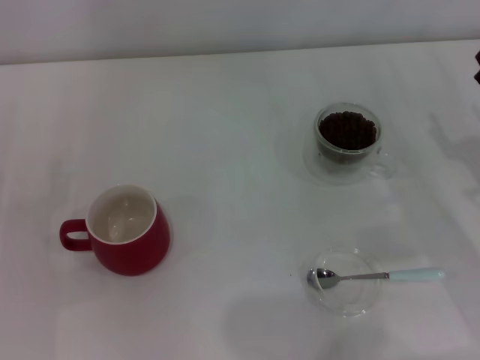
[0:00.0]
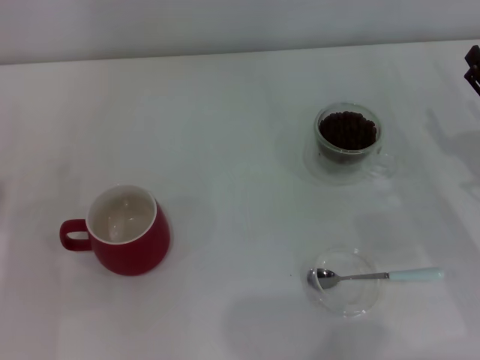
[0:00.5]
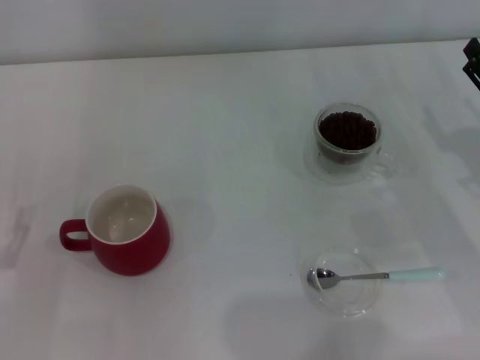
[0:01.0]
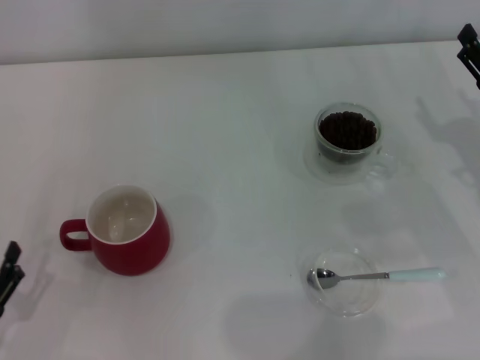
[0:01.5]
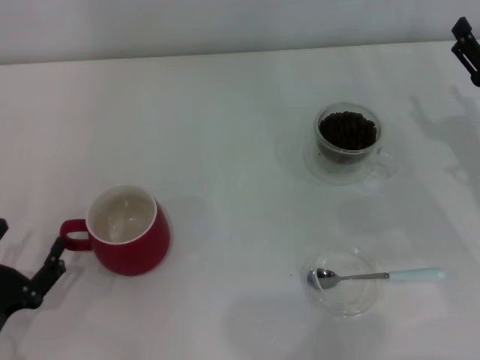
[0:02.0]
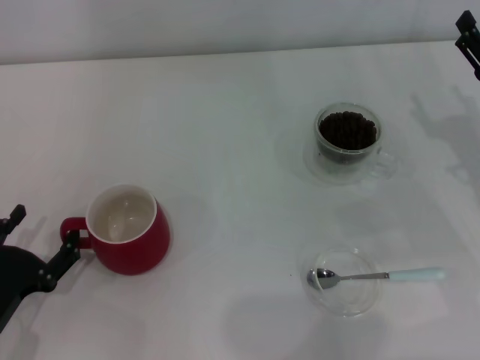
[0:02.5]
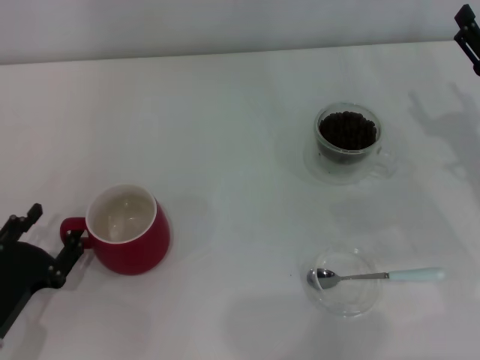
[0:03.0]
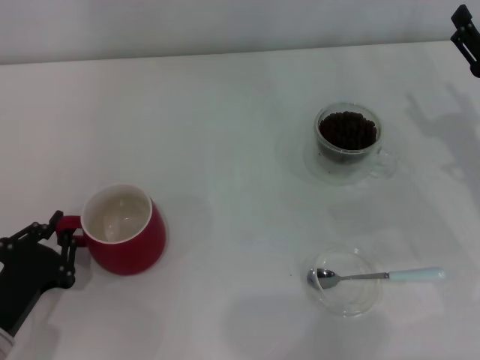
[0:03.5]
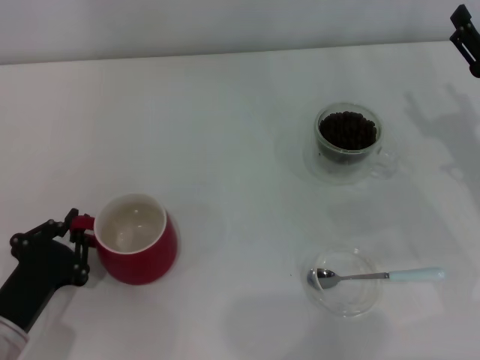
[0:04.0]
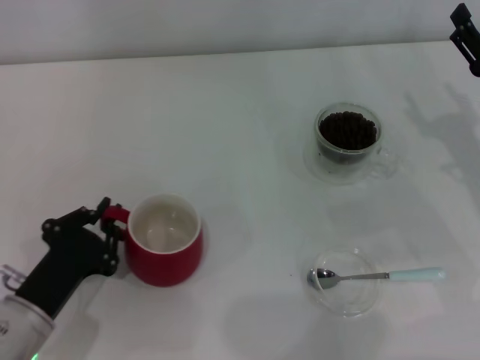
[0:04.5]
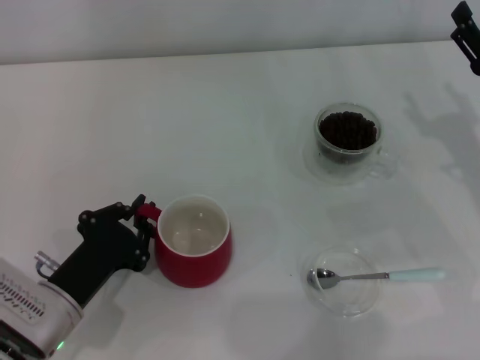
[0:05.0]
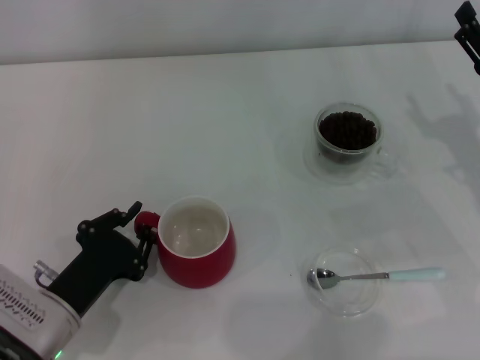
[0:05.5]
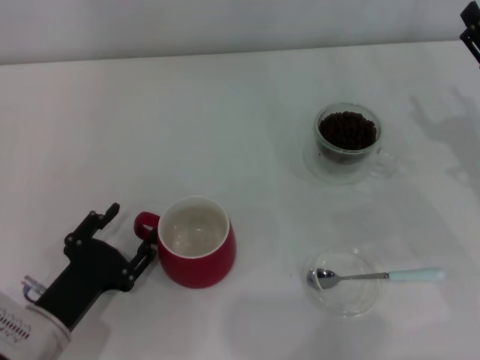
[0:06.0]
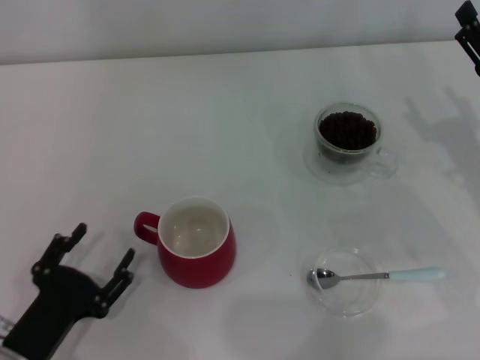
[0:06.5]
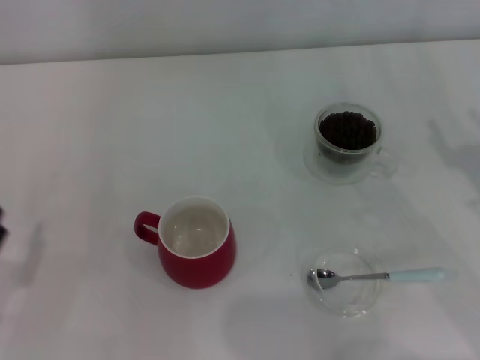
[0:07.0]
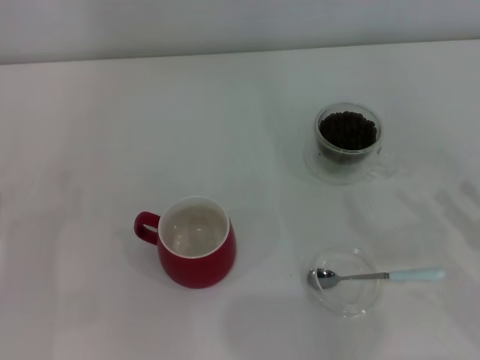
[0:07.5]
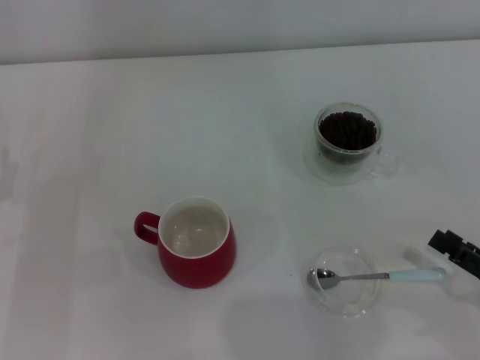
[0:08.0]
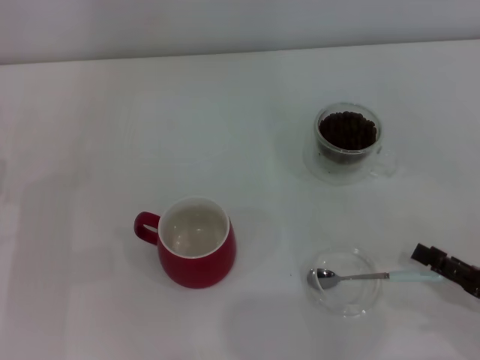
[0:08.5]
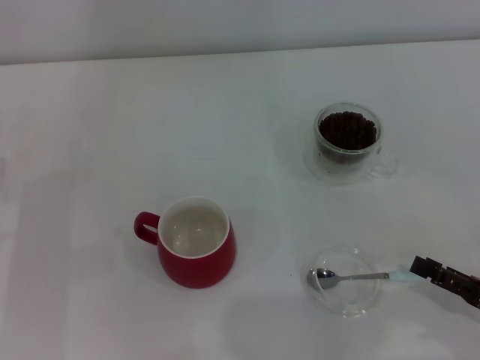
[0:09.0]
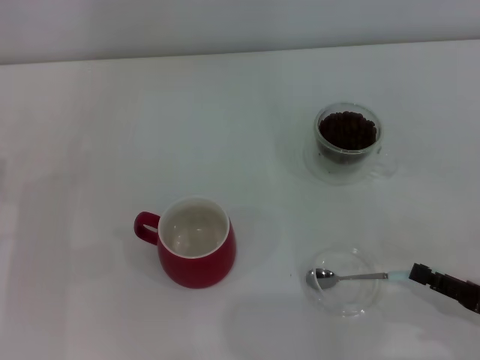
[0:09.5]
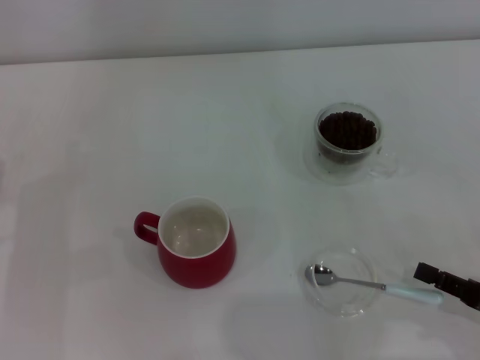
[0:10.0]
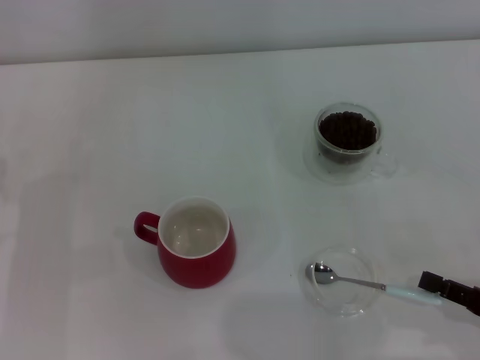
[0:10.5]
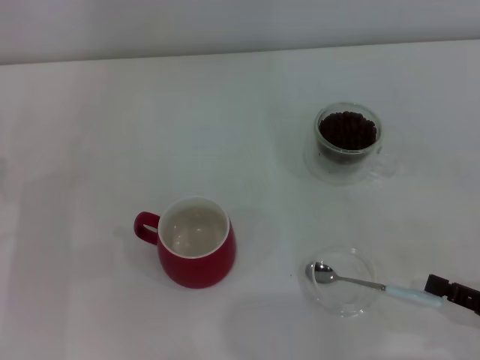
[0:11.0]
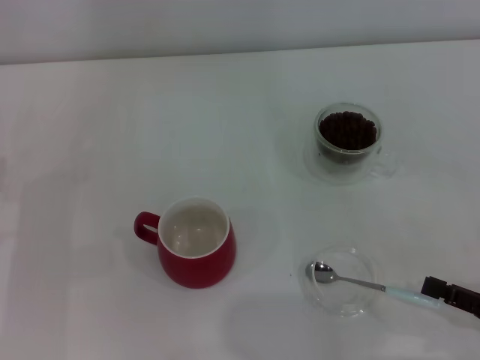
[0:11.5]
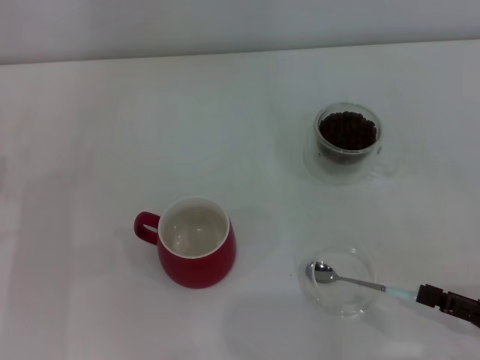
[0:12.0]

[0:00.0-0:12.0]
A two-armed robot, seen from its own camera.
Task of the whole recording: Use a blue spoon to take out the coffee beans from the glass and pour them into the red cup.
Step, 0:00.0 to 0:06.0: Move the cup to the center of view with the left gripper.
0:00.0 to 0:02.0: The left gripper heads backward, covering approximately 10 cm.
0:02.0 to 0:04.0: The left gripper closes.
0:04.0 to 0:06.0: The left gripper opens its fingers.
0:06.0 to 0:08.0: The left gripper goes roughly 10 cm to the left and forward, and opens its fingers; the right gripper moves backward, approximately 15 cm.
0:08.0 to 0:10.0: The right gripper closes.
0:10.0 to 0:12.0: The right gripper opens up.

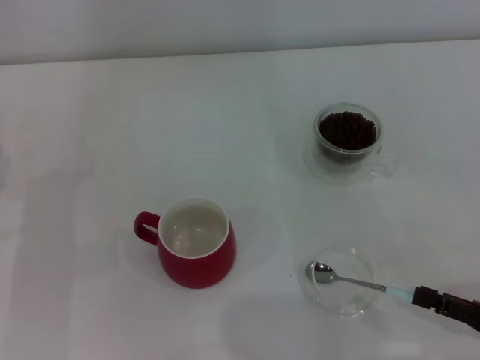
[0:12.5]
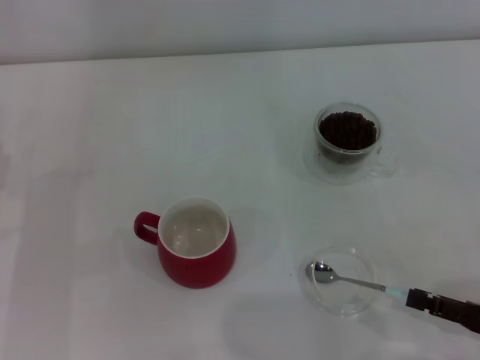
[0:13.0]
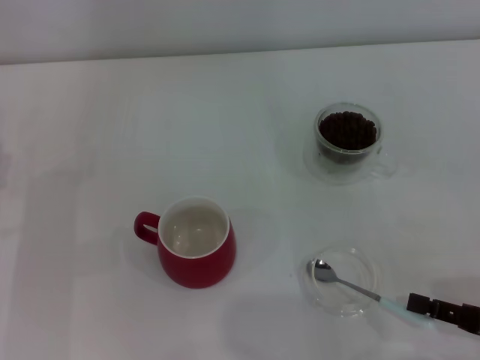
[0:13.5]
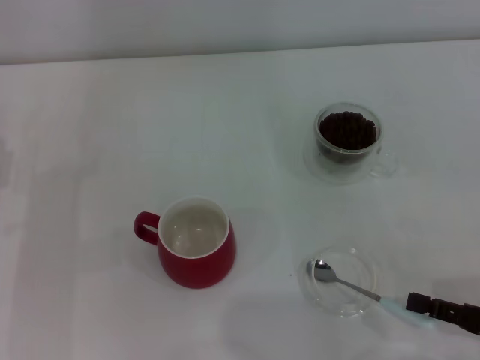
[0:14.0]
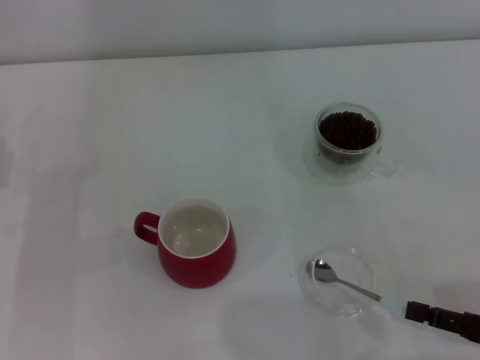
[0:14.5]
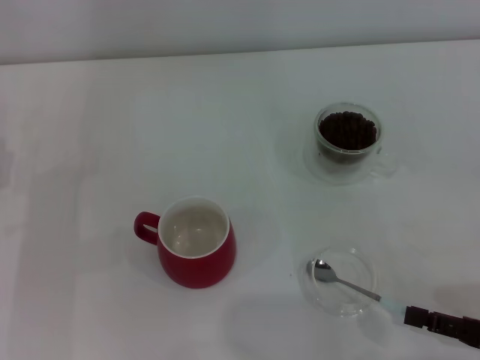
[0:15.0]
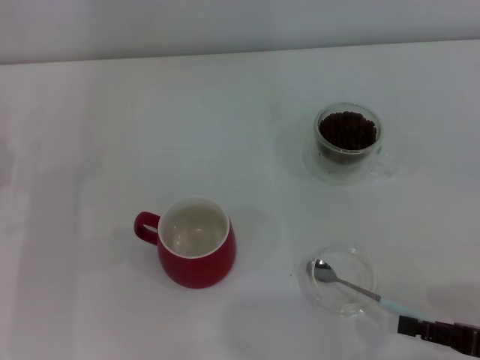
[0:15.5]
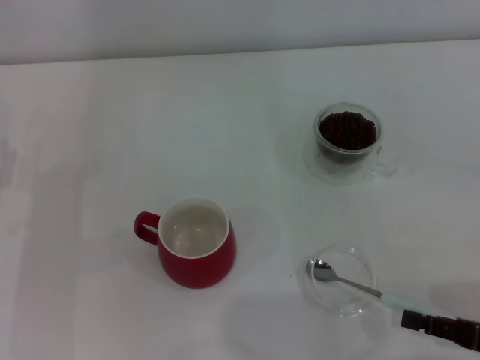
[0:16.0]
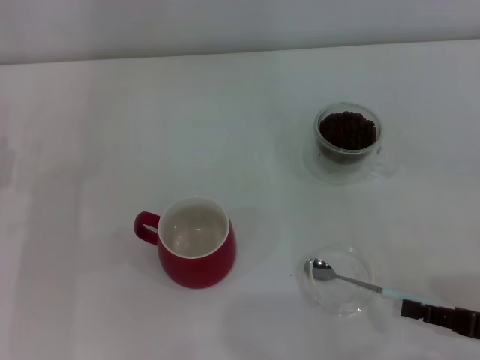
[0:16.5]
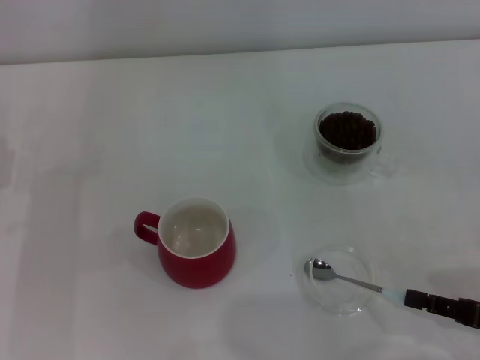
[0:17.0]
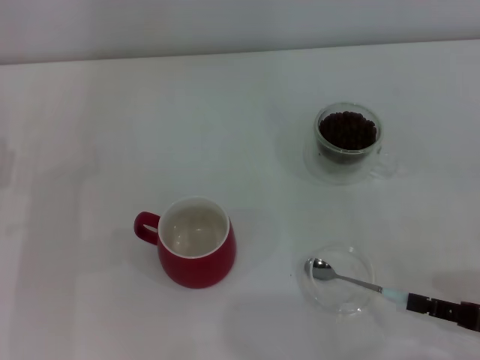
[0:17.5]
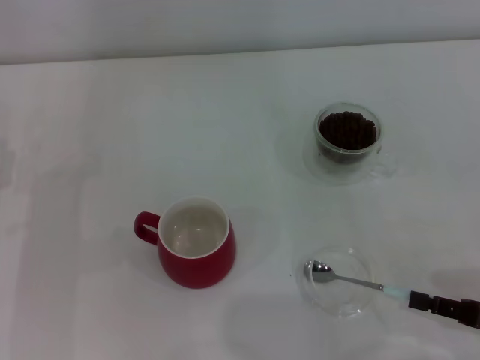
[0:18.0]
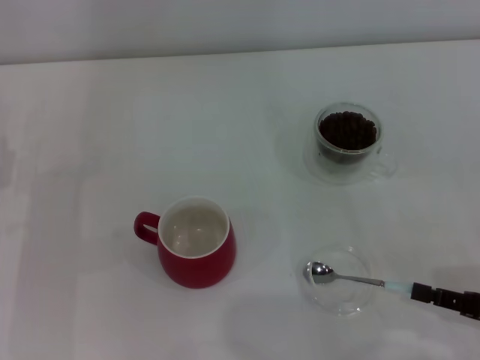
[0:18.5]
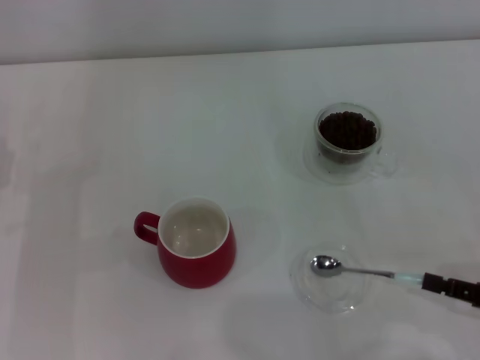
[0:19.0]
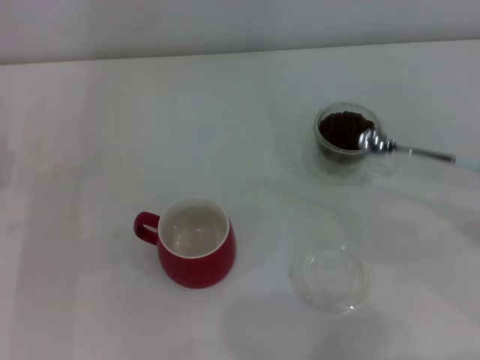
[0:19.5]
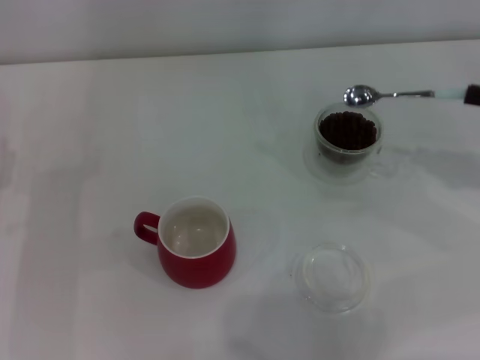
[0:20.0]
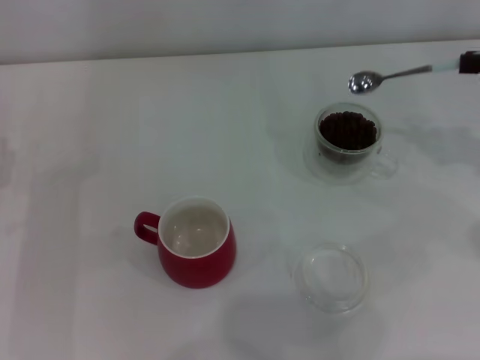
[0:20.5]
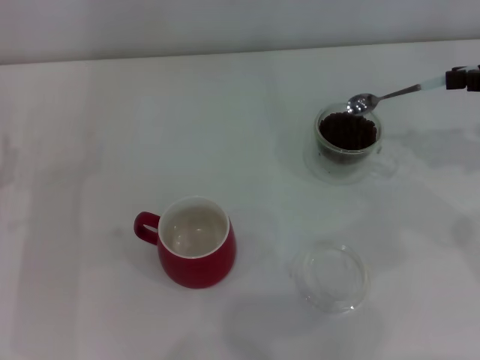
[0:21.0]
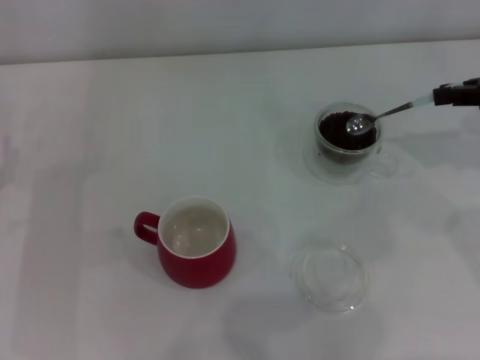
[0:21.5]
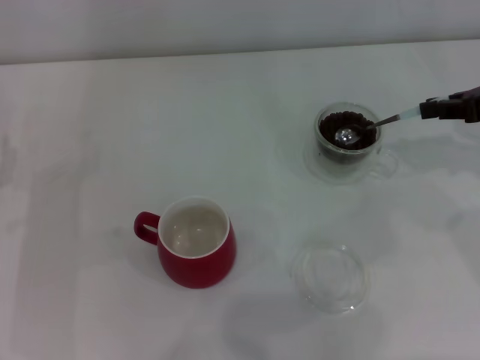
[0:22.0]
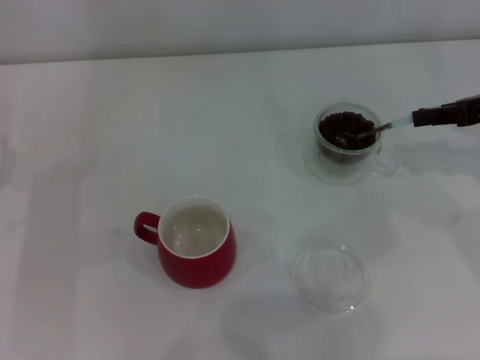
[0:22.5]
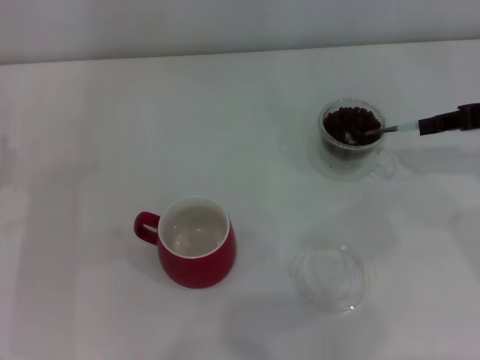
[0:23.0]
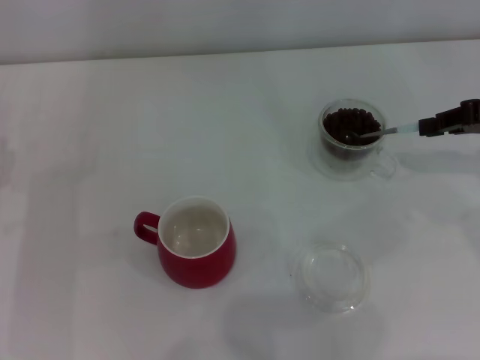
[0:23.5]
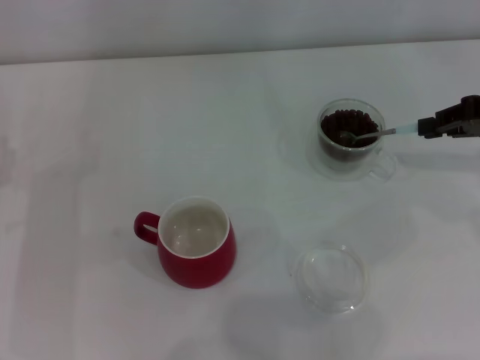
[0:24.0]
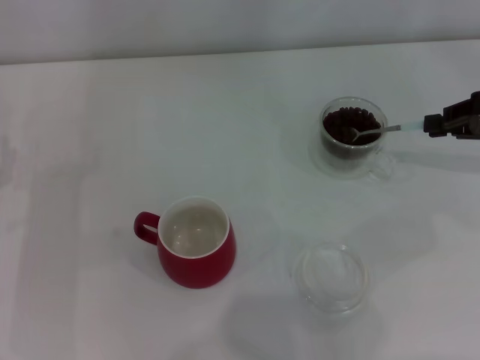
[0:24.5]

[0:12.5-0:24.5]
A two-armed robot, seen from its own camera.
Task of the whole recording: Use a blue spoon to take out the coffee beans from the glass and pour them into the red cup.
Step, 0:12.5 to 0:19.0: Pick up the spoon with the right gripper.
0:12.5 to 0:14.5: The right gripper closes, then opens again.
0:14.5 to 0:16.5: Both grippers stay about where they are.
0:16.5 to 0:18.5: Both grippers stay put.
0:18.5 to 0:20.5: The right gripper is displaced upward and forward by roughly 25 cm.
0:20.5 to 0:22.5: The right gripper moves roughly 5 cm.

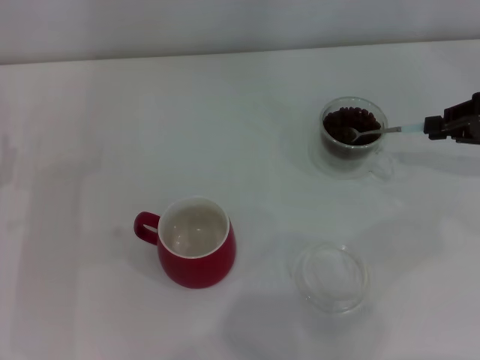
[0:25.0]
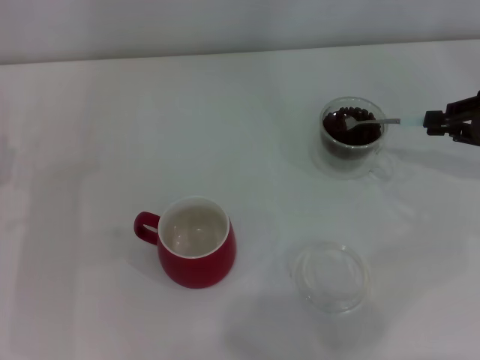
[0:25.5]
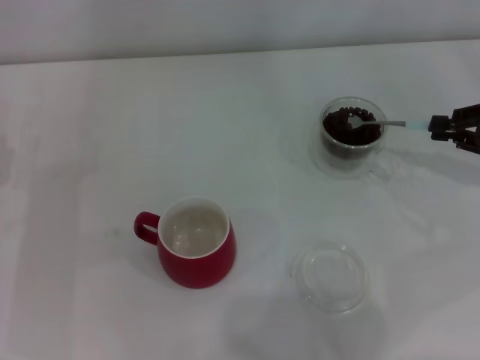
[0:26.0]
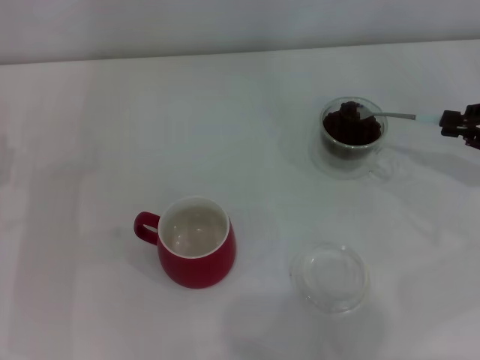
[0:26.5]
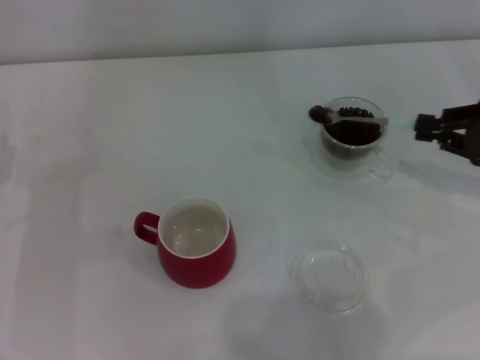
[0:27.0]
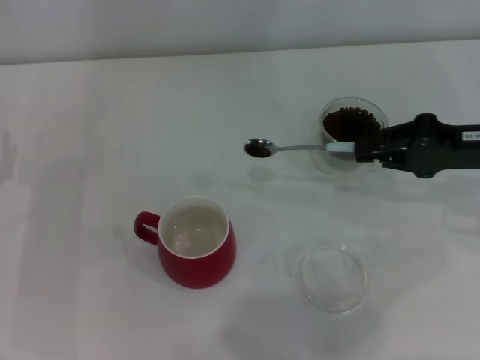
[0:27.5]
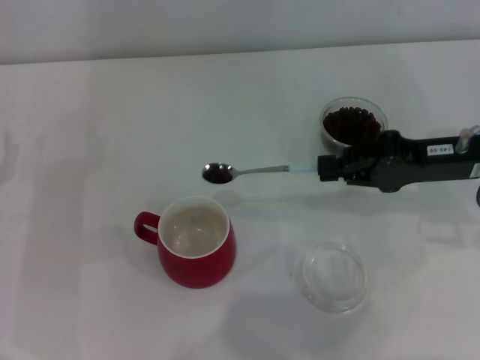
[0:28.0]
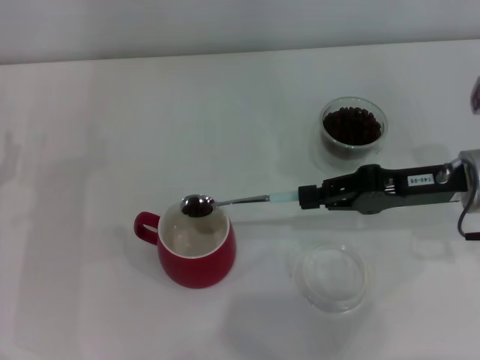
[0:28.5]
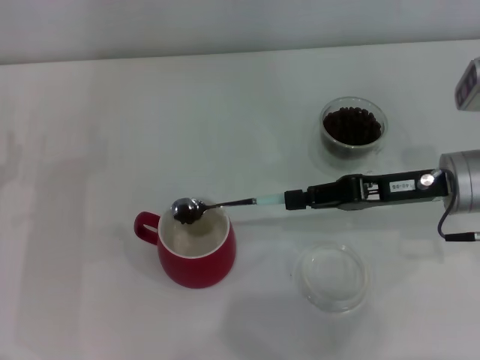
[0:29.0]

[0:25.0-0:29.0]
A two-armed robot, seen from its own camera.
Task of the whole recording: Use a blue spoon to take out the coffee beans from the glass and pour them into the red cup.
0:25.0 to 0:27.0: The grippers move only a little.
0:27.0 to 0:29.0: The right gripper shifts about 10 cm to the left.
